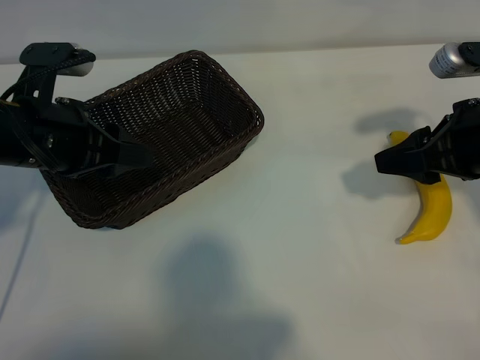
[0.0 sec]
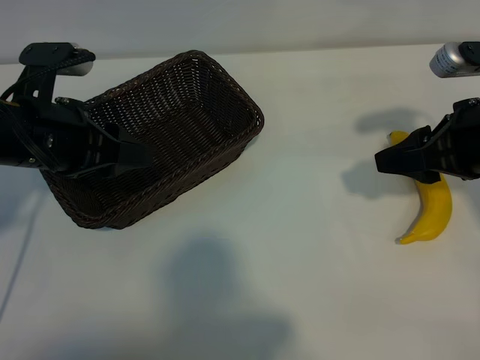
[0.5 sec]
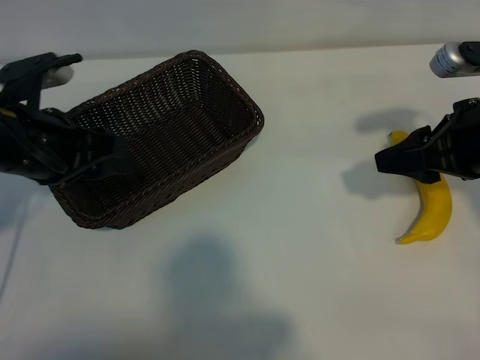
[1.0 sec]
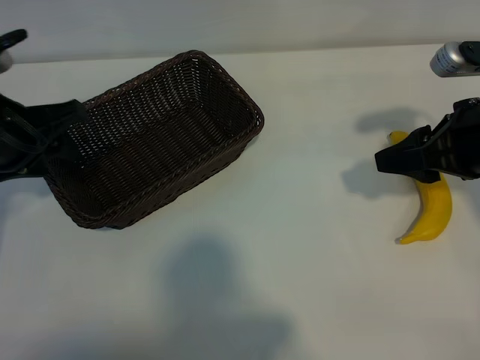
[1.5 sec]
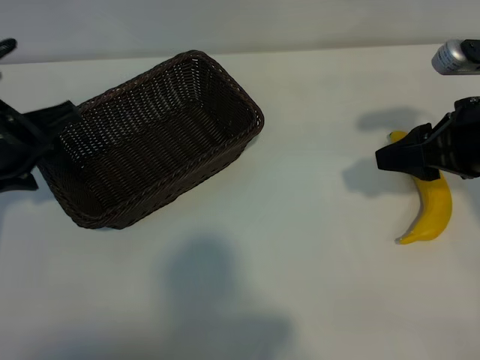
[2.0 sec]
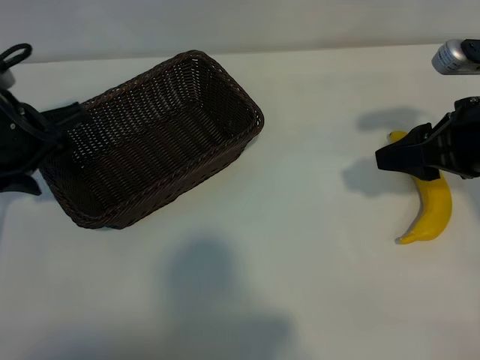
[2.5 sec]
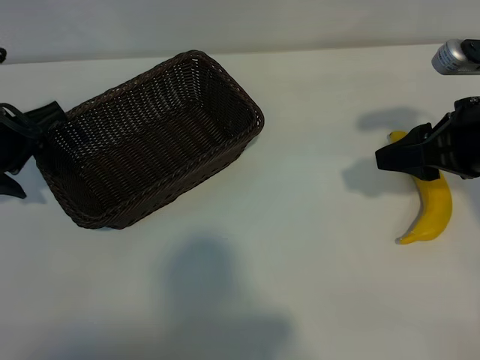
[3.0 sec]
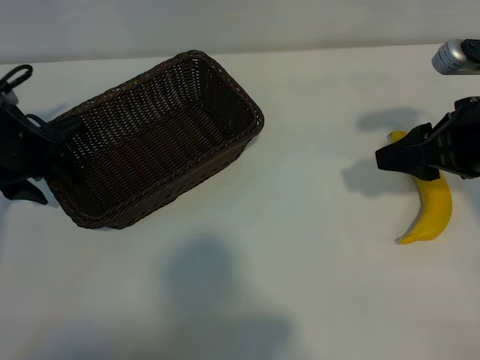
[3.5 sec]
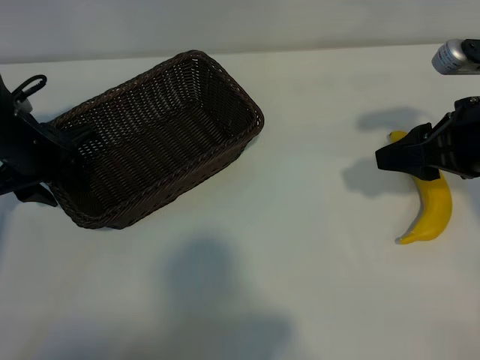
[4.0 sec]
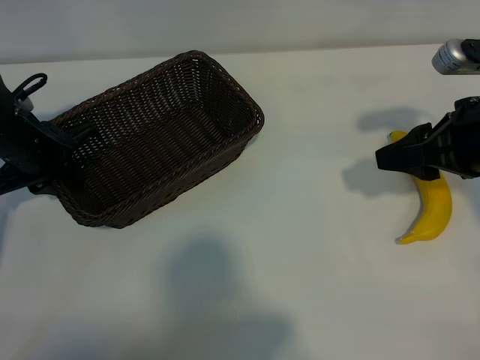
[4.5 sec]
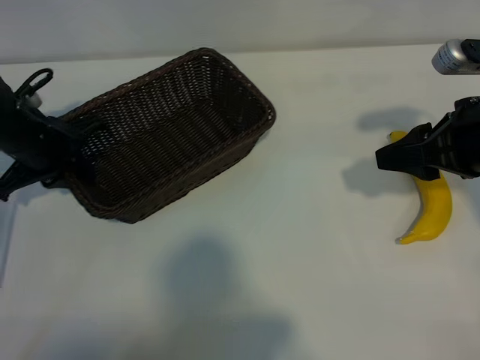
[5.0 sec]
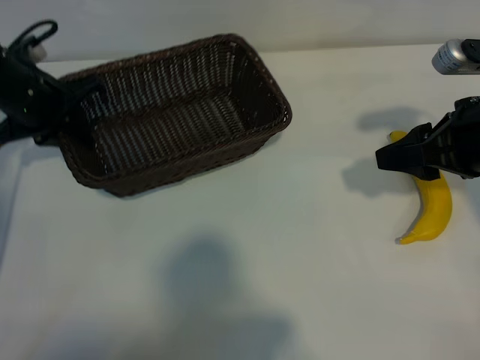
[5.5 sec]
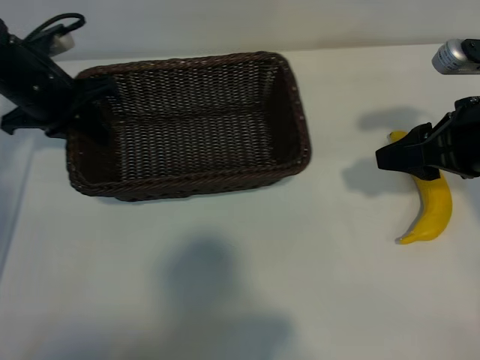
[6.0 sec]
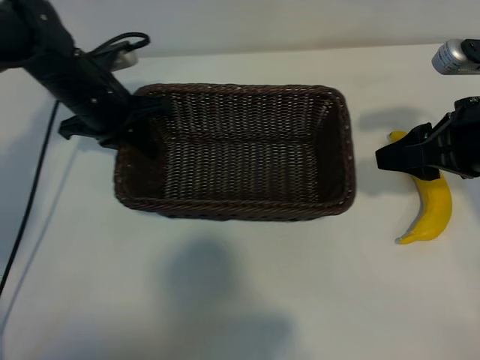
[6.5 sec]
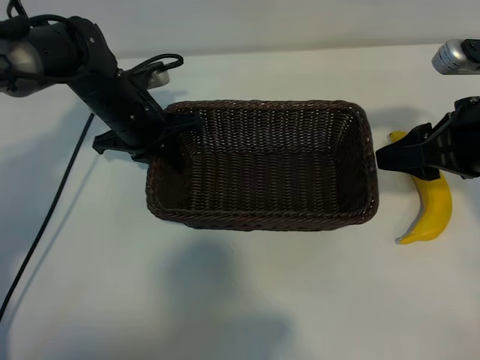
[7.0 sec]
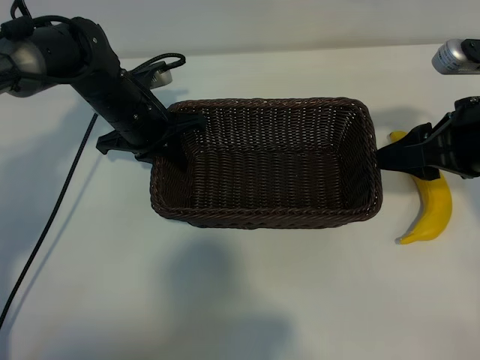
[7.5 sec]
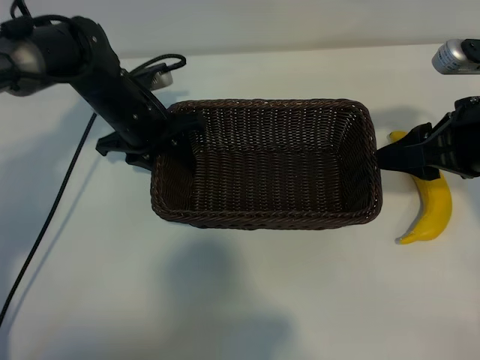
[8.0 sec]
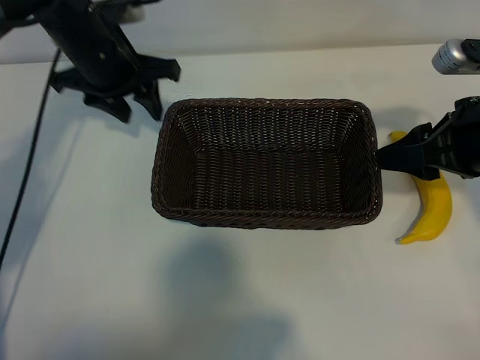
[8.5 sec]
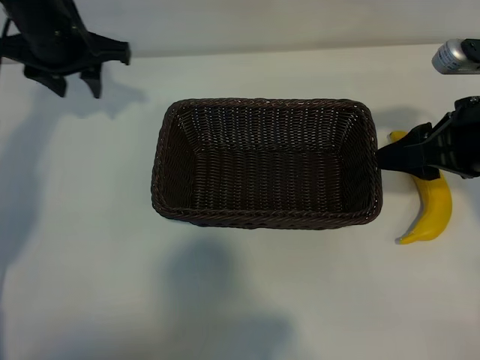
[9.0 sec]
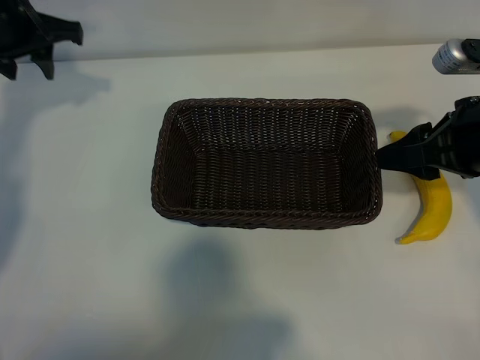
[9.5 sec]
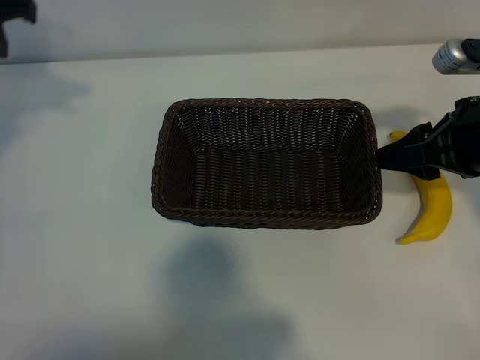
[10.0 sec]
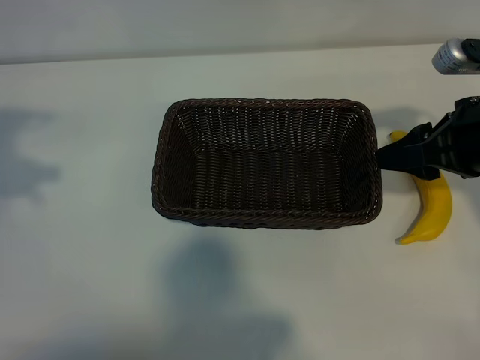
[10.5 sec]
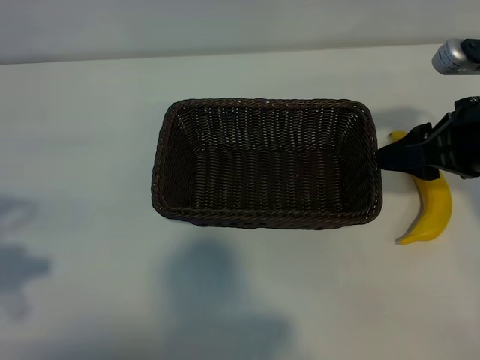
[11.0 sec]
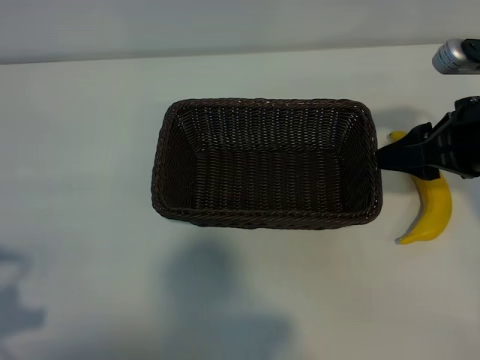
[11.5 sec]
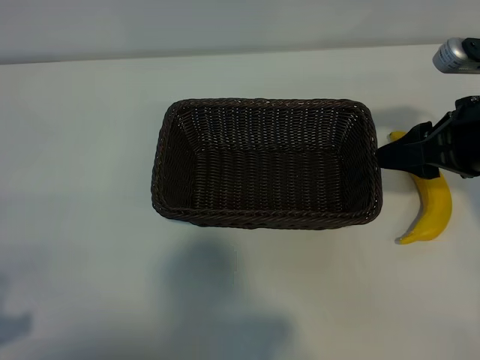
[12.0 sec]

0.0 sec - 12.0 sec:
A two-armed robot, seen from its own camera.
Task of the whole recording: pick up the banana and put it into the basket.
Step, 1.0 sec - 4.5 sec: Grasp the basket with the left gripper.
Step, 5.0 sec - 8.0 sec: Place the basket in the center of the table with the left gripper.

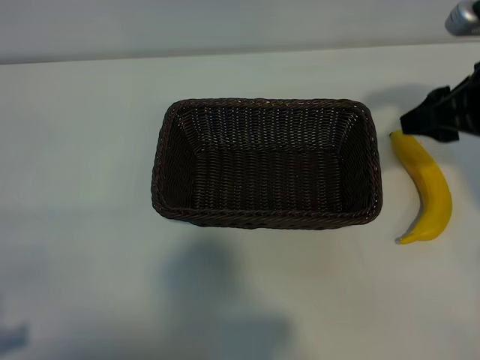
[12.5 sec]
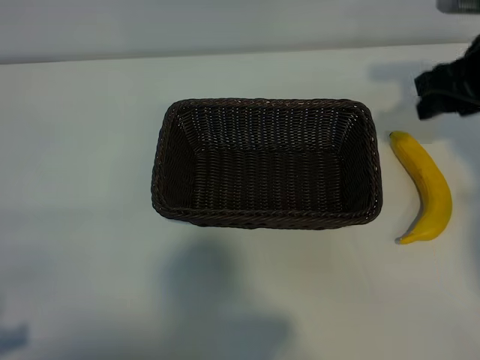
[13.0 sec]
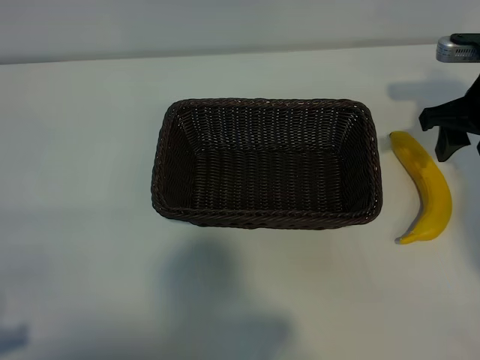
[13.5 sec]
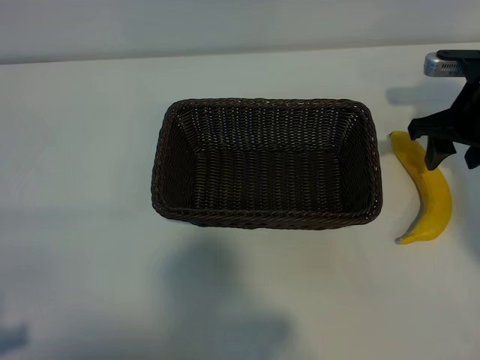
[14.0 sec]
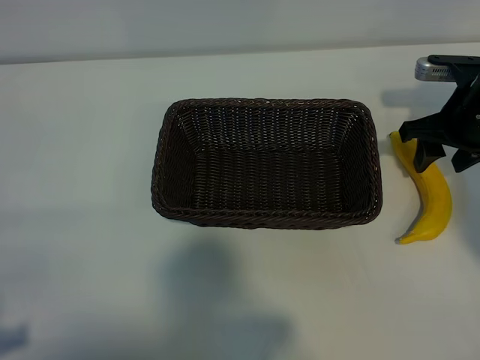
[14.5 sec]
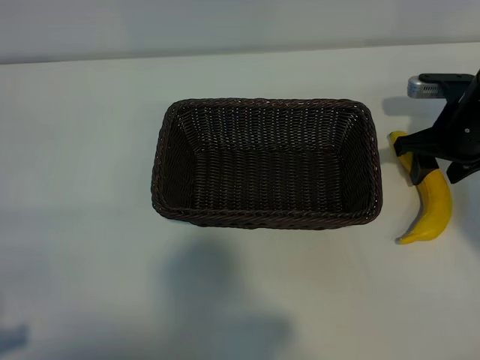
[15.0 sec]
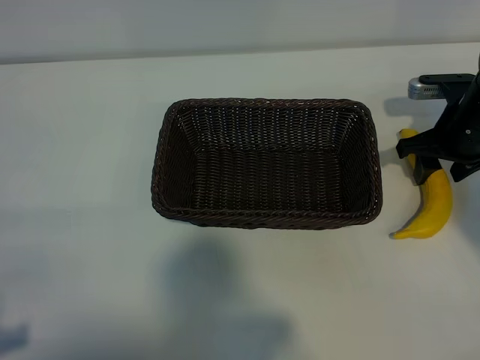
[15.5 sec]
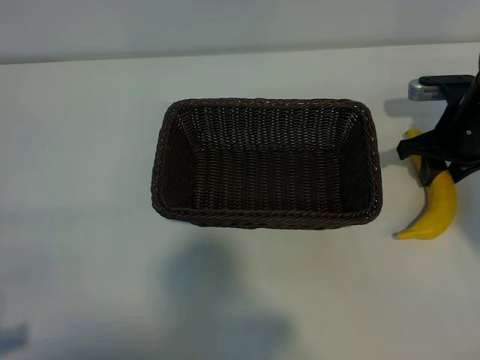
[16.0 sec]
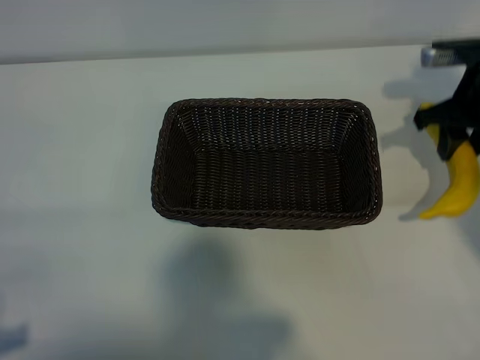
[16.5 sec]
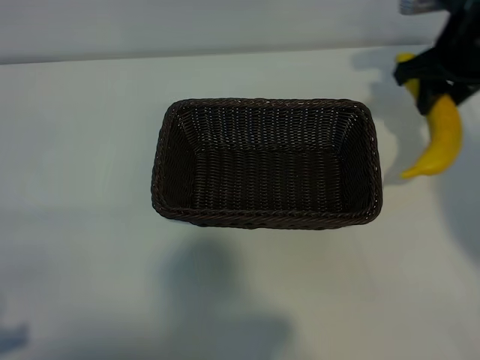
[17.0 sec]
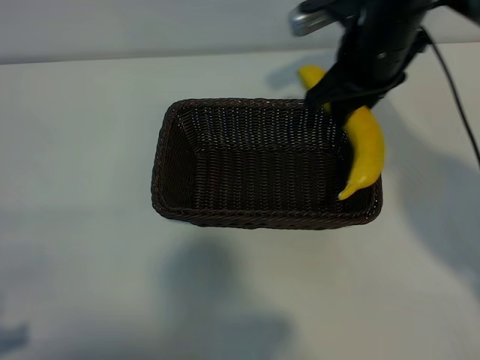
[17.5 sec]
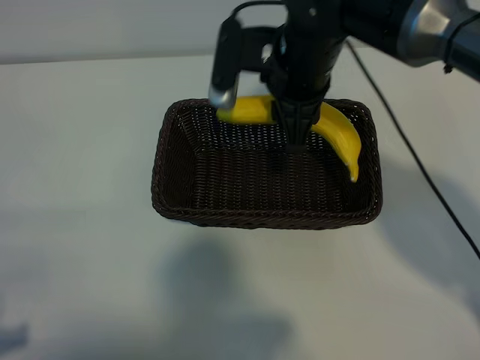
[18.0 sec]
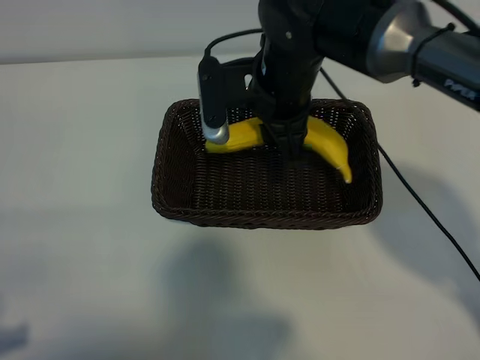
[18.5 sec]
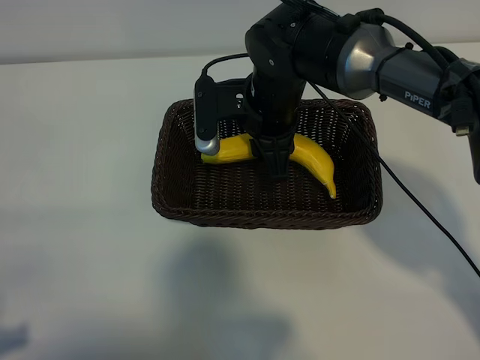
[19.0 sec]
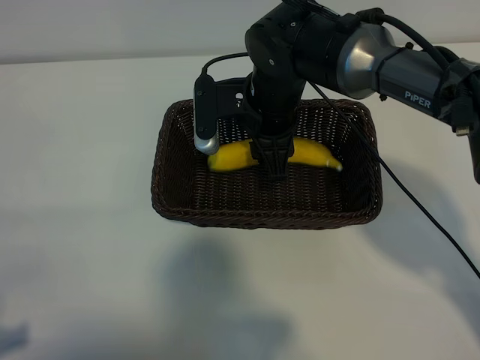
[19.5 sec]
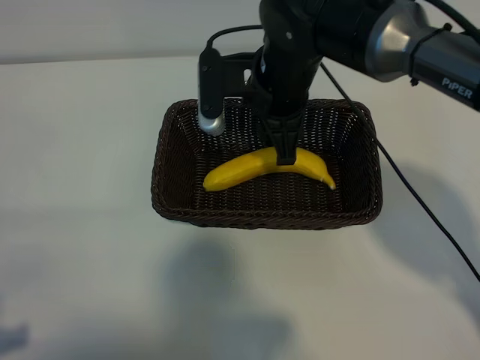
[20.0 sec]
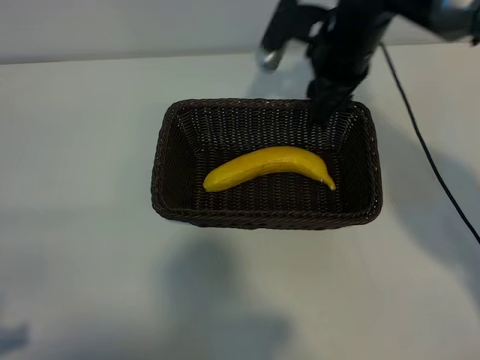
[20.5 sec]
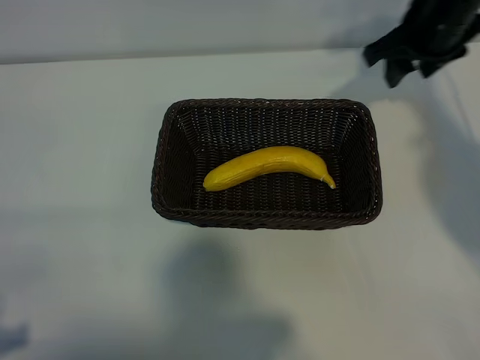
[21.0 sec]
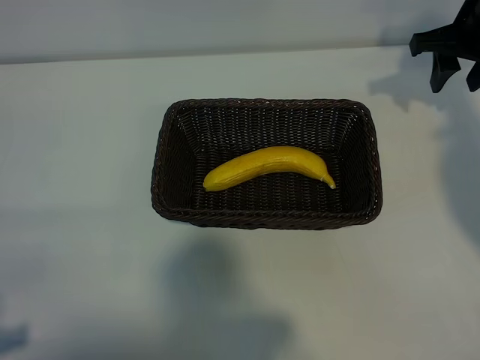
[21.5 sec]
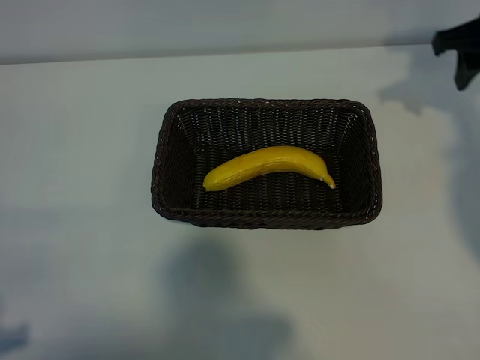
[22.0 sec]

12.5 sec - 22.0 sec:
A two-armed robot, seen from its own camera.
Task of the whole recording: pick up the banana and put it into the basket.
Step, 12.5 sec - 15.5 sec: Grasp the banana with right gripper.
Step, 16.0 sec - 20.0 sec: Place the banana in the basket with right gripper.

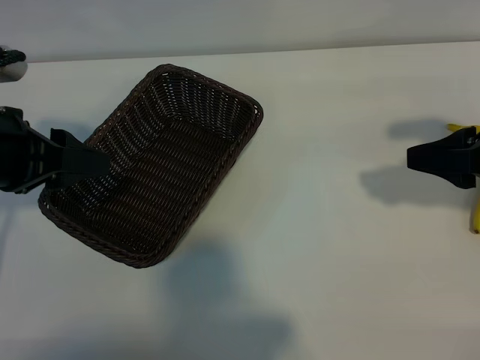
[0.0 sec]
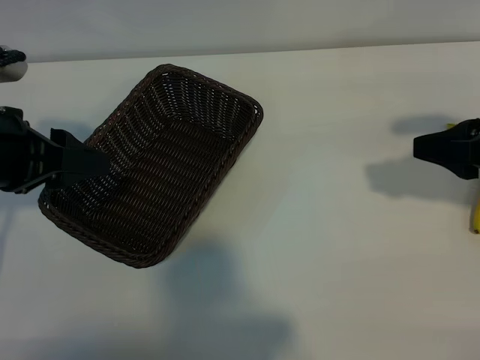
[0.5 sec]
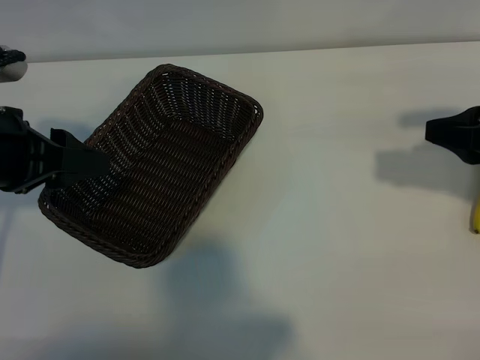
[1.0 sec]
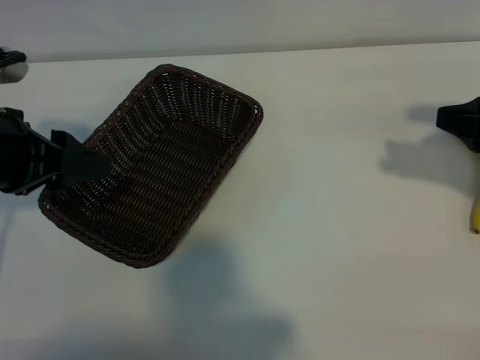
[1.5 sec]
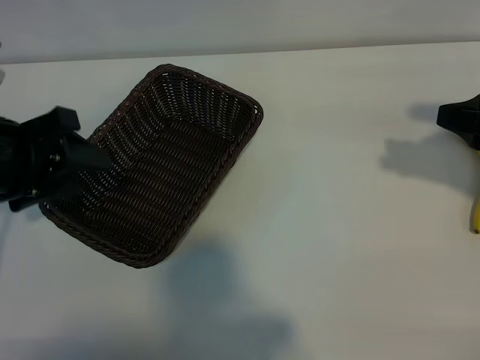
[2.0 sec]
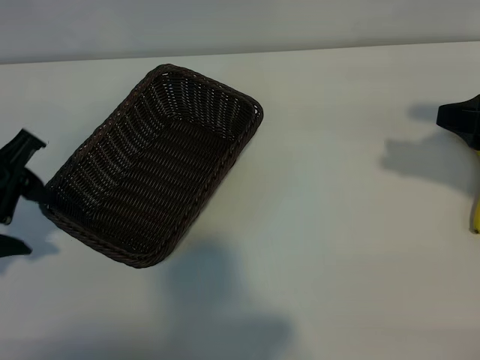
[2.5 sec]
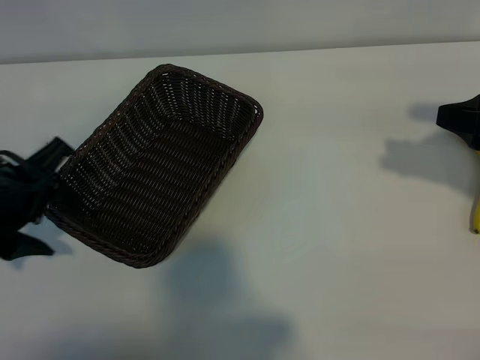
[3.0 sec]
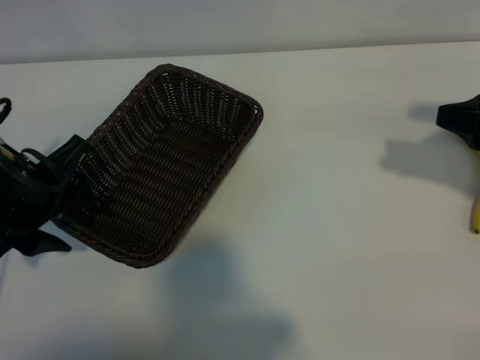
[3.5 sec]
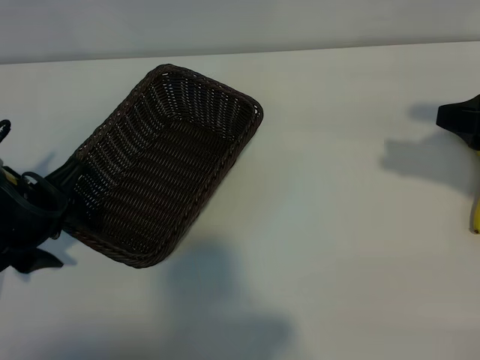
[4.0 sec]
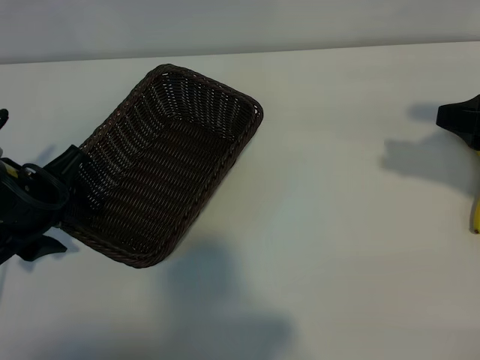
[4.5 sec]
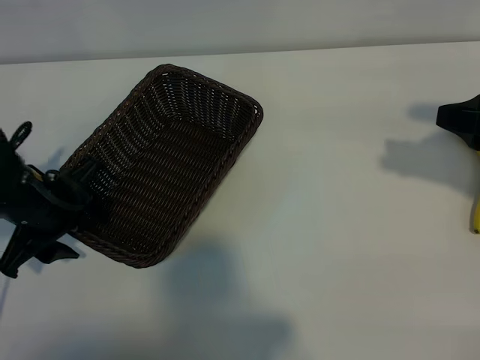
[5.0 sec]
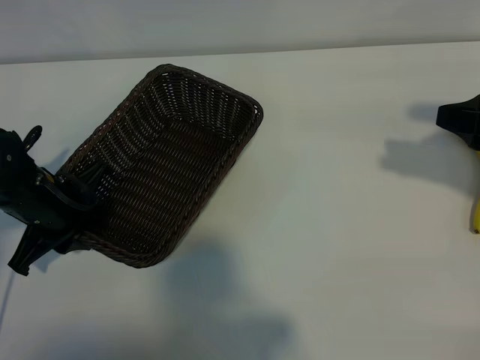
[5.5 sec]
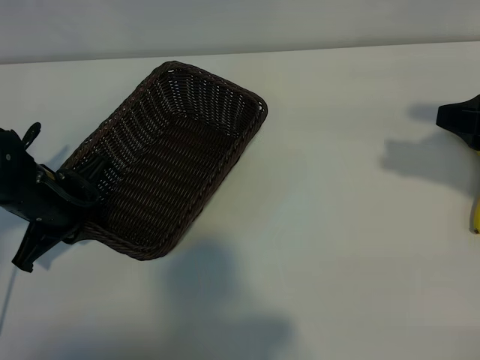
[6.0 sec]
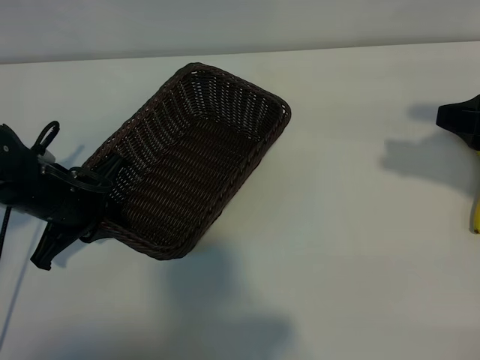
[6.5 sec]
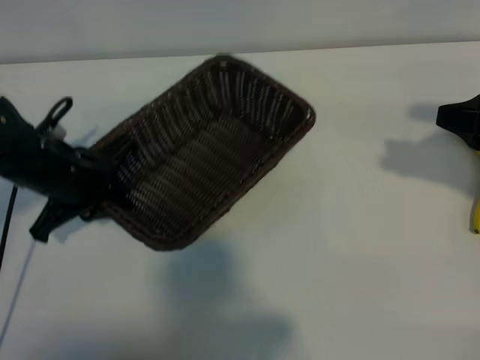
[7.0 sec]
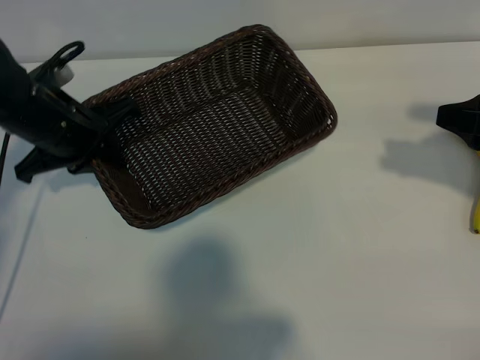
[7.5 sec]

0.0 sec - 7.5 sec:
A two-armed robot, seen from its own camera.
Task of the whole recording: pick up the banana and put it into the basket.
Step, 0.0 sec - 5.5 sec: Grasp the basket with the left gripper.
